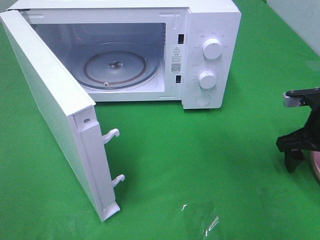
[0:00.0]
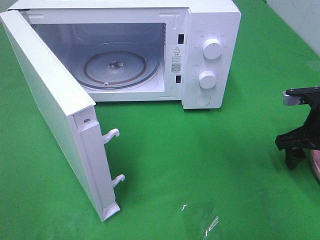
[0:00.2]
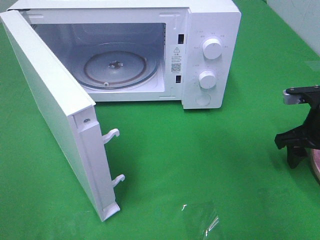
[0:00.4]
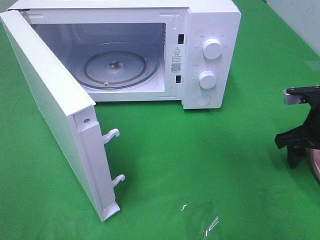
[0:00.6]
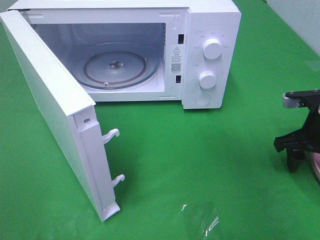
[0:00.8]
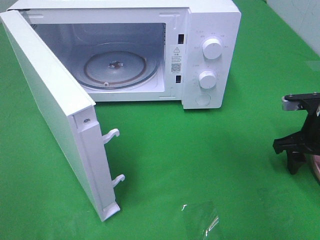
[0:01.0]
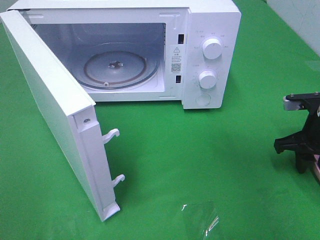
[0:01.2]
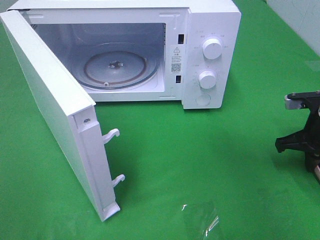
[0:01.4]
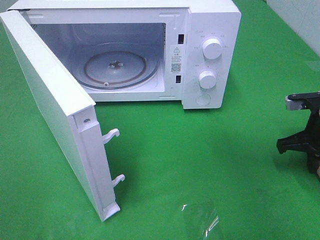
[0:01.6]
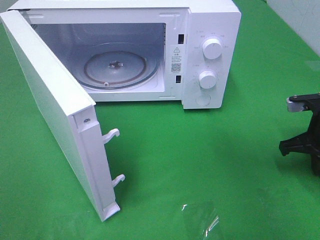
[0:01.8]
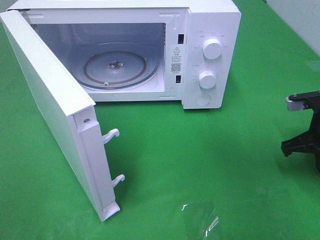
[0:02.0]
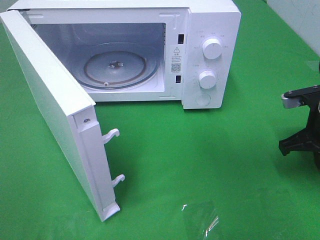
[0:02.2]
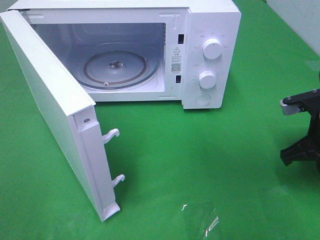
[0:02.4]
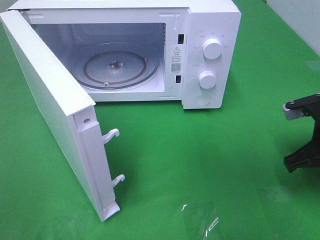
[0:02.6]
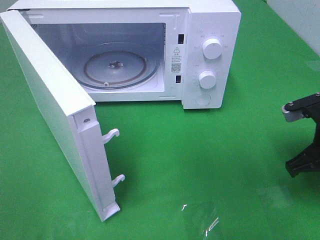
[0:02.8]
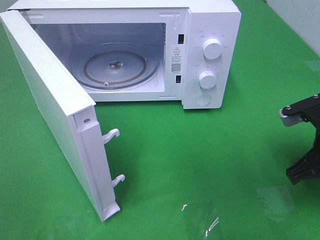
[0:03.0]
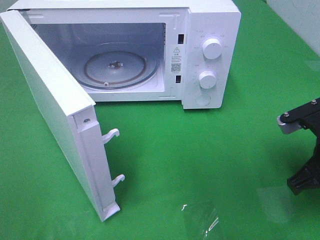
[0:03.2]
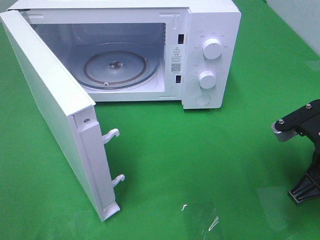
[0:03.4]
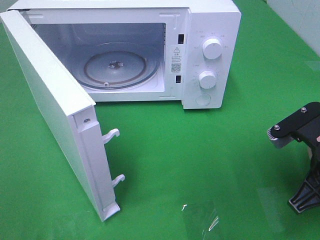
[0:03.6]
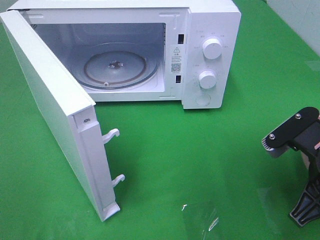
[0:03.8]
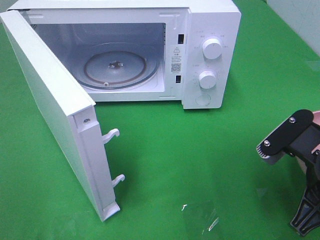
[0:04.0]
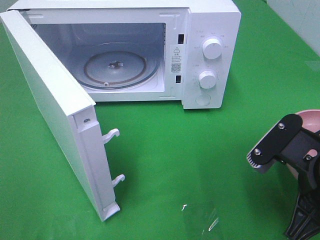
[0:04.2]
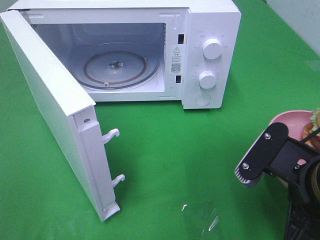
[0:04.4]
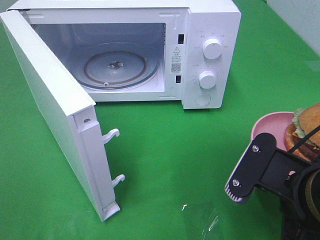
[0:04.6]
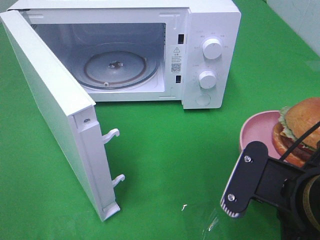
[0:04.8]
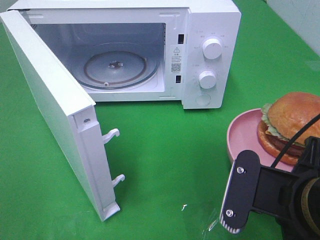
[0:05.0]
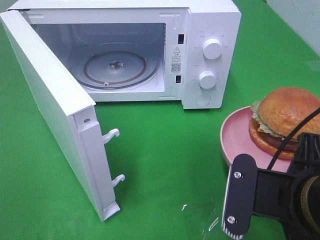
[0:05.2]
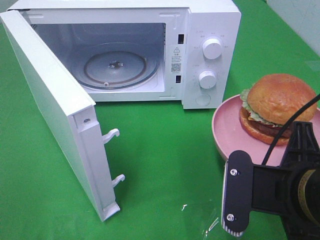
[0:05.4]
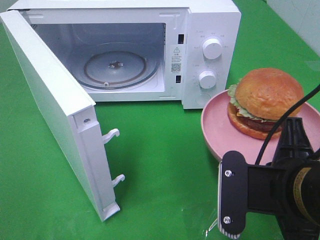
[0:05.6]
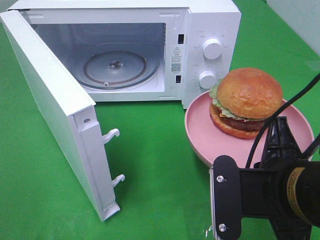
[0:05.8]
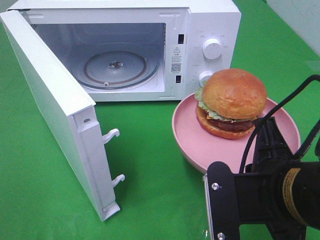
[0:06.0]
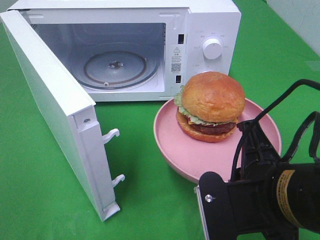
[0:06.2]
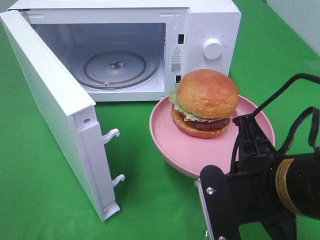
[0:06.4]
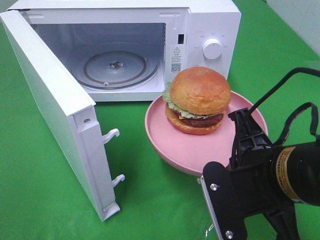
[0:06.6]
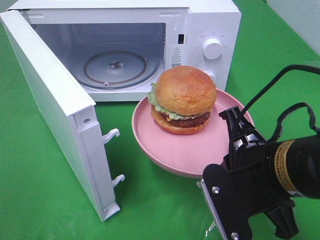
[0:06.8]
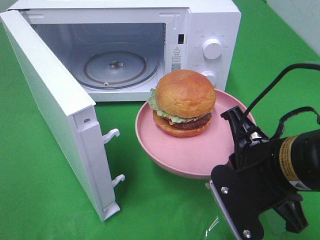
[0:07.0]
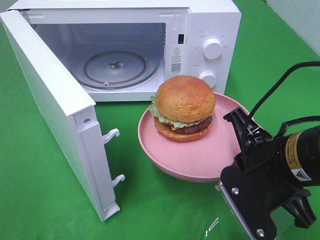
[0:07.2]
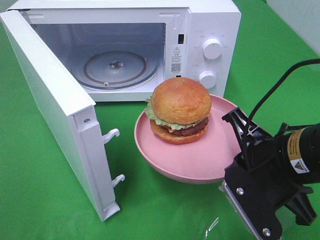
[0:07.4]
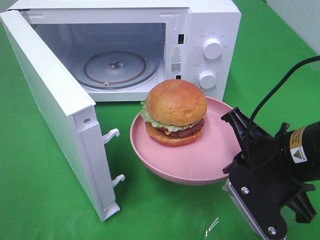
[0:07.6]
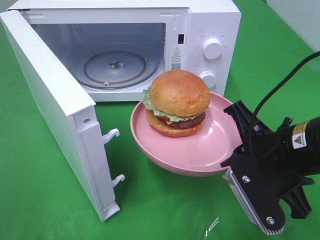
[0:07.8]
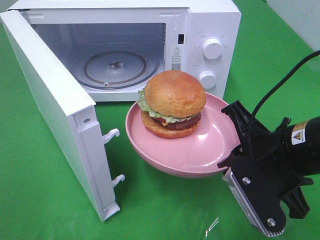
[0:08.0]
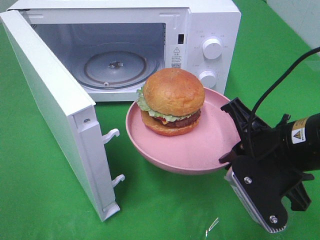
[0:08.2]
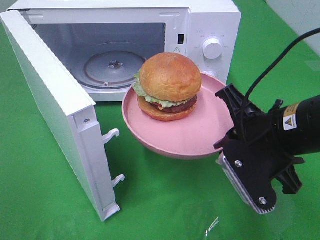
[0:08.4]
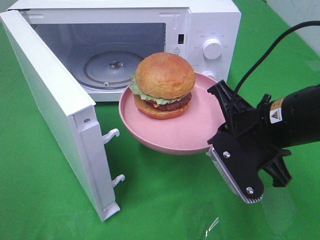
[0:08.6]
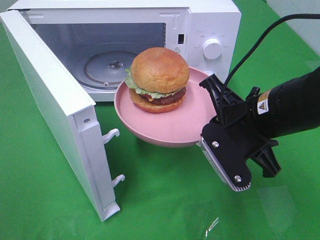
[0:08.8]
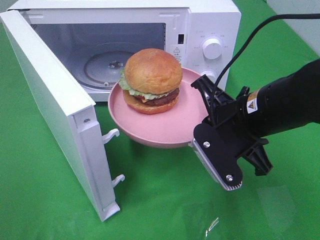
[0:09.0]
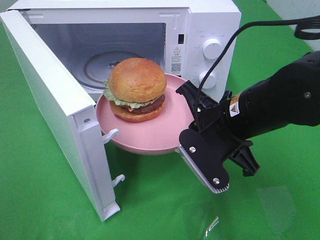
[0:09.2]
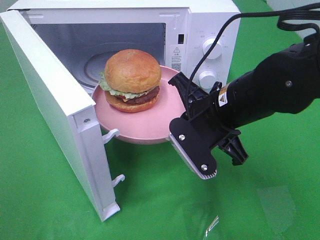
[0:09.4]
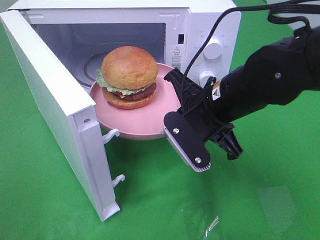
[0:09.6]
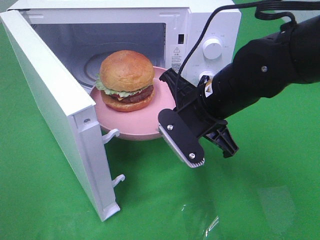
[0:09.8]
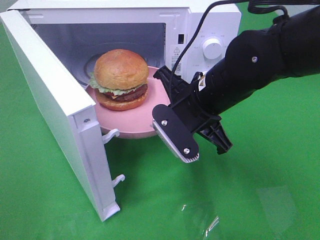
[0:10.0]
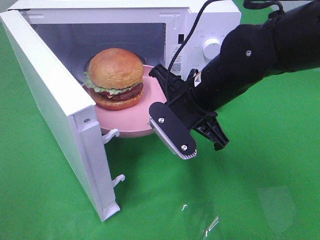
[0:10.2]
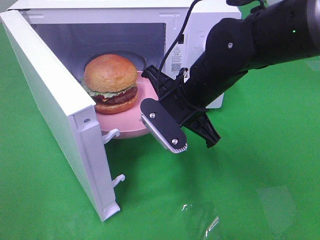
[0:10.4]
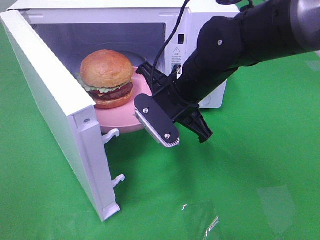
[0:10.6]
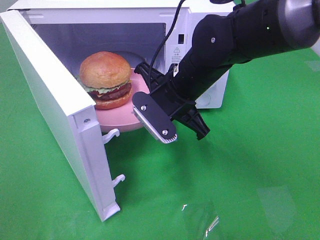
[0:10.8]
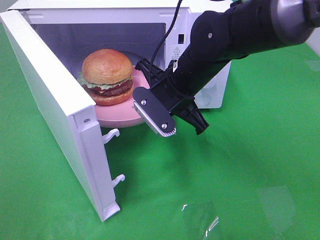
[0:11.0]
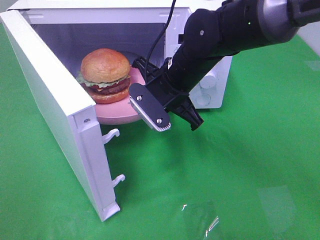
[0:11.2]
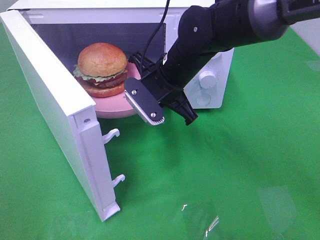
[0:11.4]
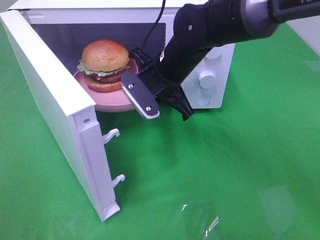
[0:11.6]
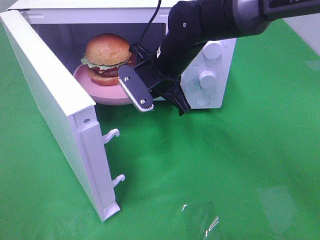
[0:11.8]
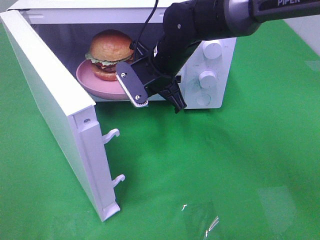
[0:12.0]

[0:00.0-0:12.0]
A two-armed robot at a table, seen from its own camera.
Task of the whole recording: Heat the burger.
0:00.0 to 0:01.6: The right gripper closes up.
0:01.6 to 0:03.0: The right gripper goes approximately 5 cm backward.
0:03.0 to 0:04.4: The right gripper is displaced backward and to the left by roughly 10 cm.
0:06.0 to 0:07.6: The right gripper is displaced forward by approximately 5 cm.
0:07.6 to 0:09.0: The right gripper goes about 5 cm forward.
0:09.0 to 0:10.4: The right gripper travels to the left and forward by roughly 10 cm.
0:10.4 to 0:12.0: The right gripper goes approximately 10 cm forward.

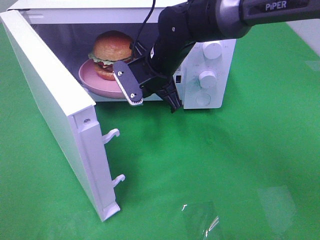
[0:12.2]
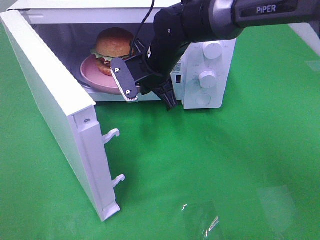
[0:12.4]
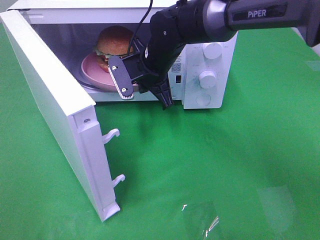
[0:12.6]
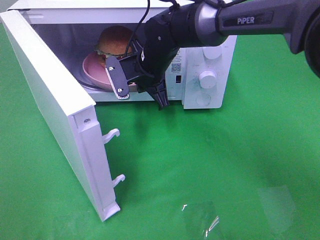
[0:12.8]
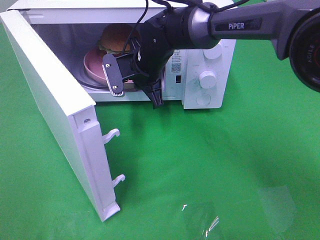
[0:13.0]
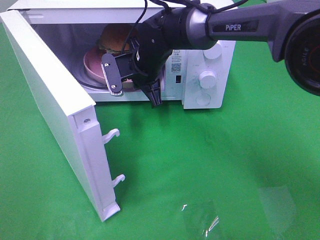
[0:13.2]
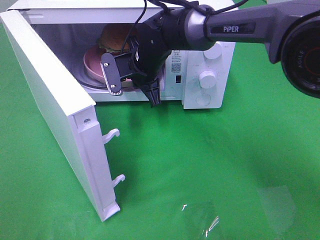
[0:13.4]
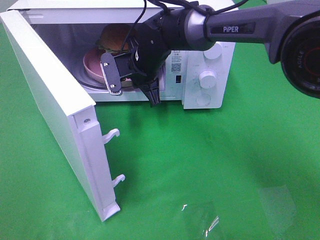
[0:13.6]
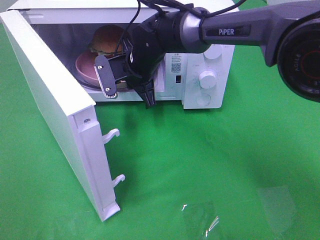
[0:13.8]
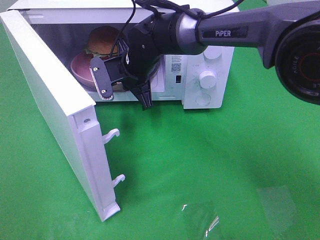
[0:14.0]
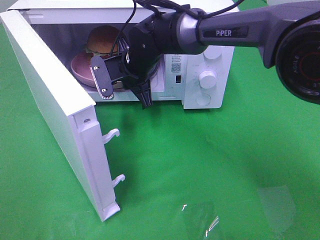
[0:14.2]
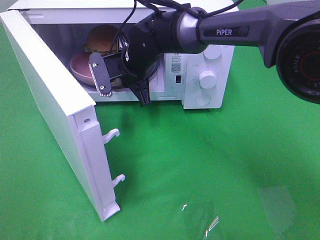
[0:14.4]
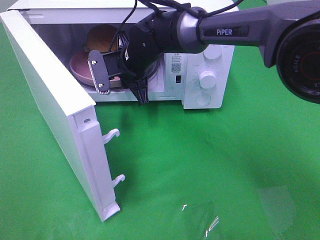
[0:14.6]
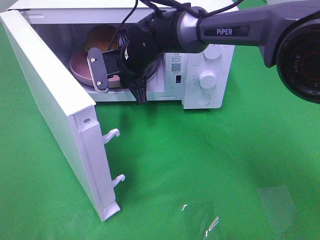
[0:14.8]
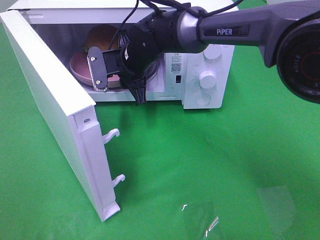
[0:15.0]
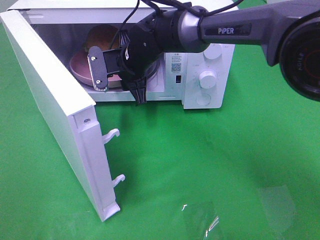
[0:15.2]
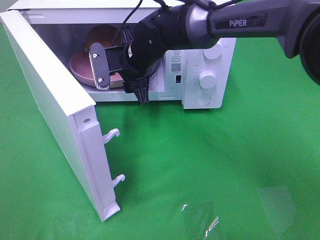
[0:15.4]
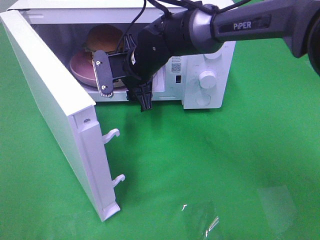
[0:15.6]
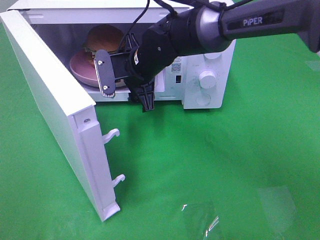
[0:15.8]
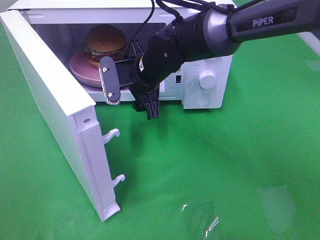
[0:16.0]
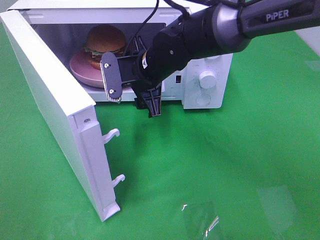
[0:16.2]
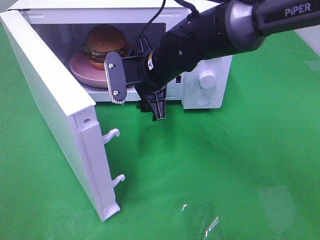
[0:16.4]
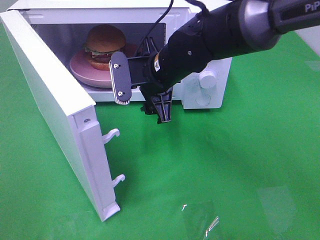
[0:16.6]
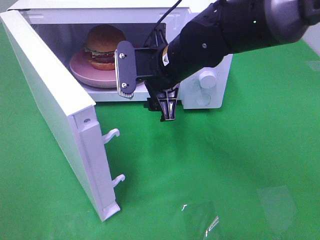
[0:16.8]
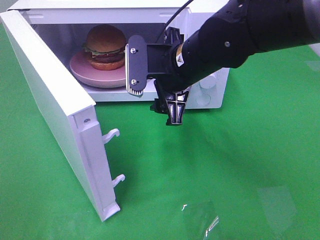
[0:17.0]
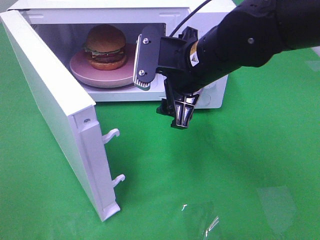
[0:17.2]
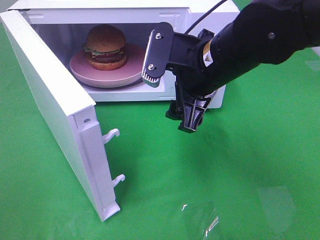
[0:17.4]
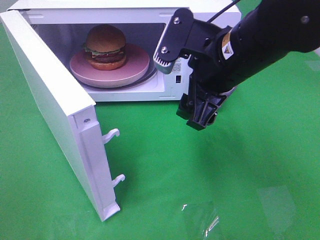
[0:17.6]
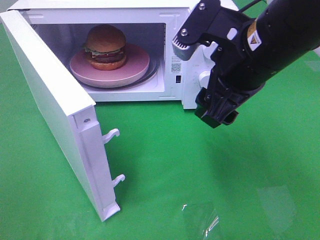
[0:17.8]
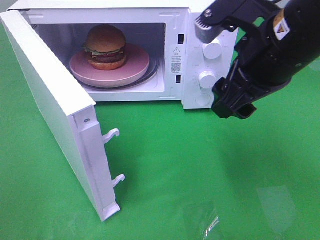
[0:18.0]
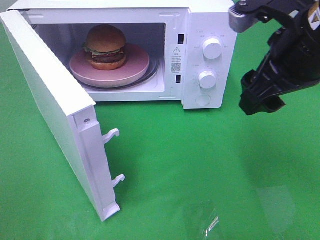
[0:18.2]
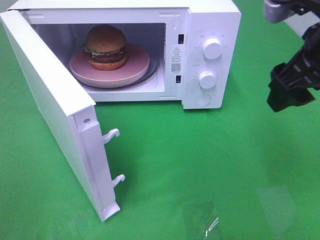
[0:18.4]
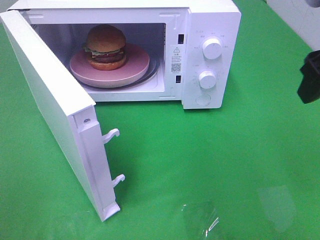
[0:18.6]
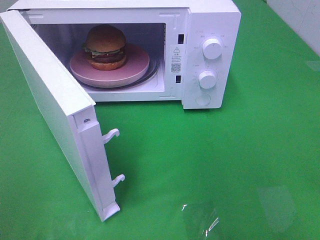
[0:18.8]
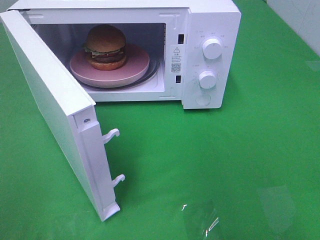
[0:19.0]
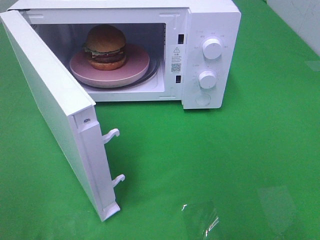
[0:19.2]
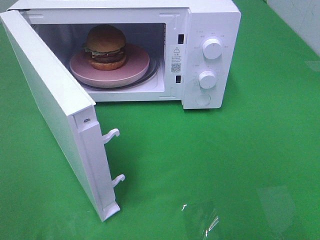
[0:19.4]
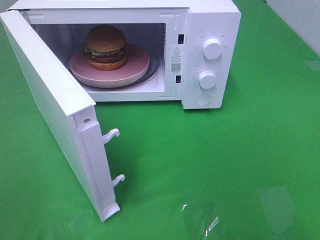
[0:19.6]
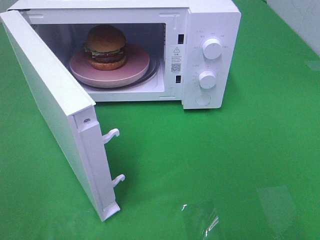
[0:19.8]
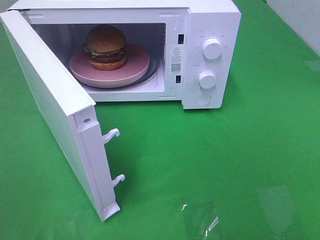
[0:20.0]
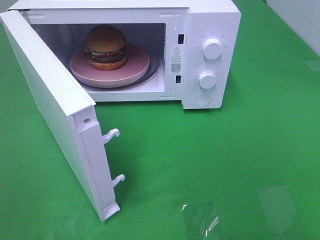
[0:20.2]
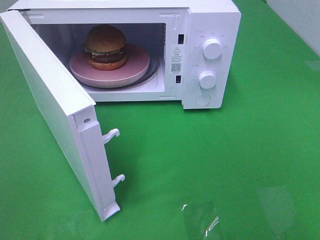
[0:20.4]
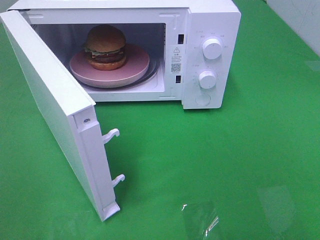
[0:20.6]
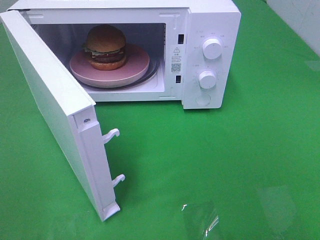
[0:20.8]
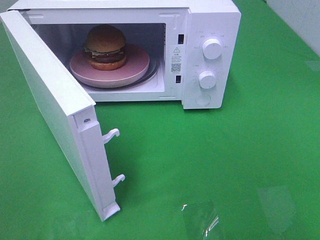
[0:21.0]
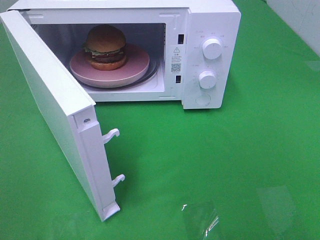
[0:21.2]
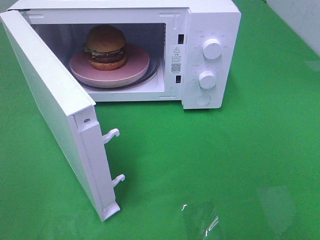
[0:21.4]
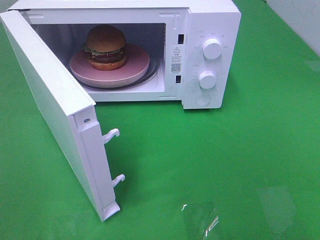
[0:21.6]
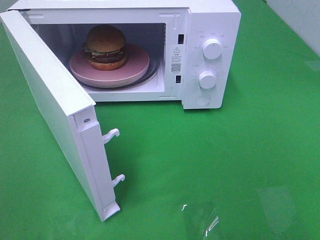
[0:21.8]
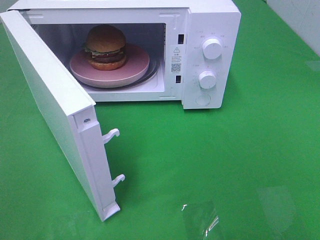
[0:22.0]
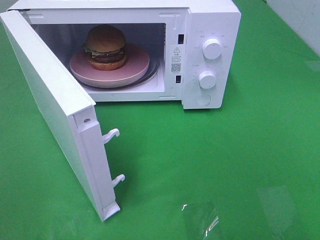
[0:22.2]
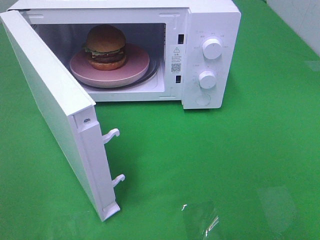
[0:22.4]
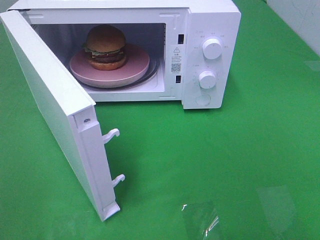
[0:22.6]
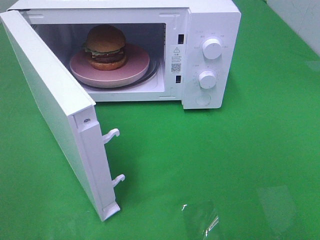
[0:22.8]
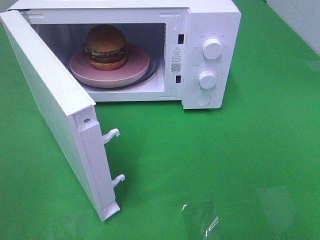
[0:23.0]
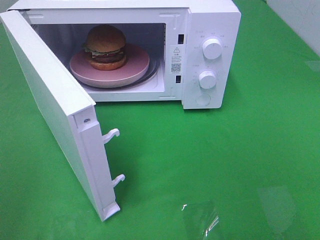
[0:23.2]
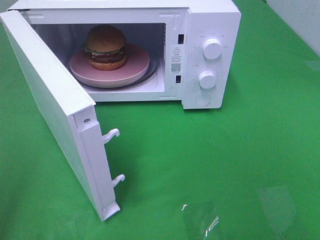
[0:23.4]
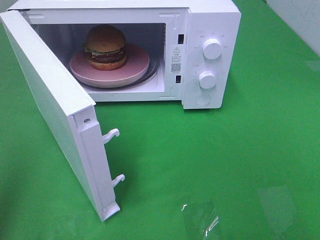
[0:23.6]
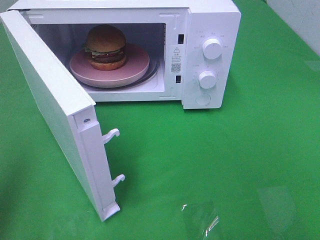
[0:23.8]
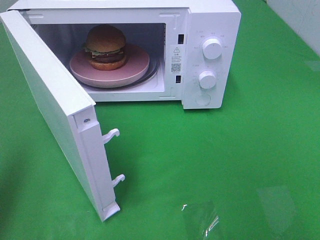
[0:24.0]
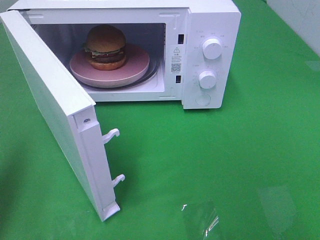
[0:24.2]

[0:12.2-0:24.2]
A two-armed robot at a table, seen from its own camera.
Task of the whole recording: Heat the burger.
Step, 0:12.2 to 0:14.4: Right hand: place the plate in the microwave.
0:12.2 to 0:13.8: The right gripper ends up some 5 cm from where it was.
0:13.8 to 0:15.2: The right gripper opens up.
0:15.2 to 0:16.6: The right gripper heads backward and to the right, covering some 10 cm.
0:16.6 to 0:18.2: The right gripper shifts approximately 20 cm to the right, upward and backward.
0:18.2 to 0:19.8: The right gripper moves backward and to the right, some 20 cm.
0:21.2 to 0:22.6: The two grippers keep their place.
0:22.6 to 0:24.2: The left gripper is displaced forward by about 15 cm, and closes.
